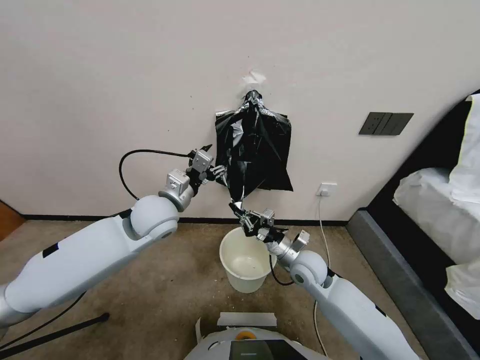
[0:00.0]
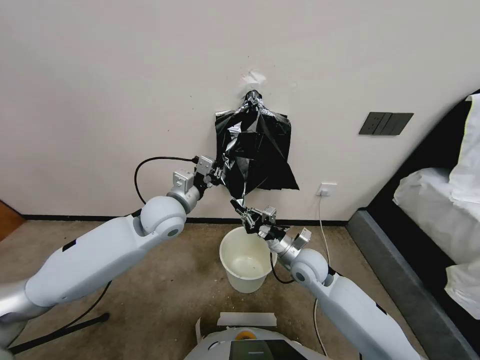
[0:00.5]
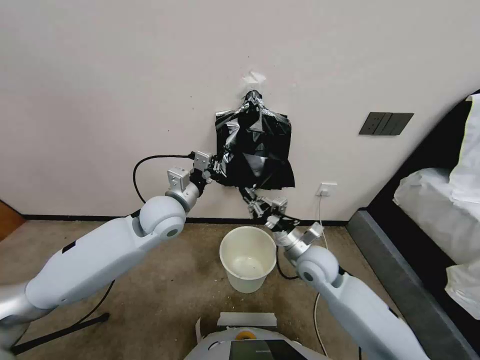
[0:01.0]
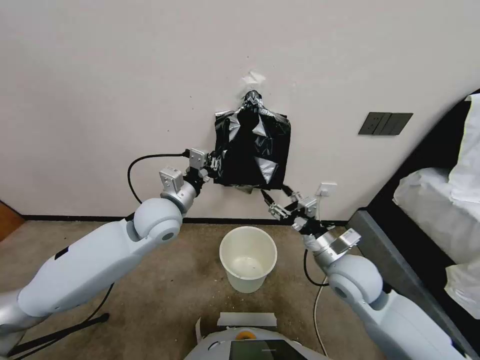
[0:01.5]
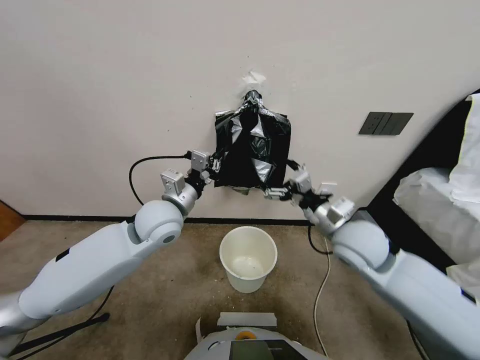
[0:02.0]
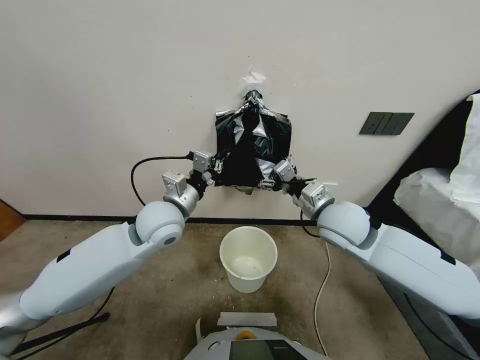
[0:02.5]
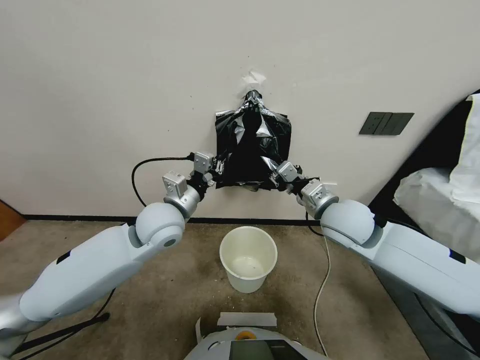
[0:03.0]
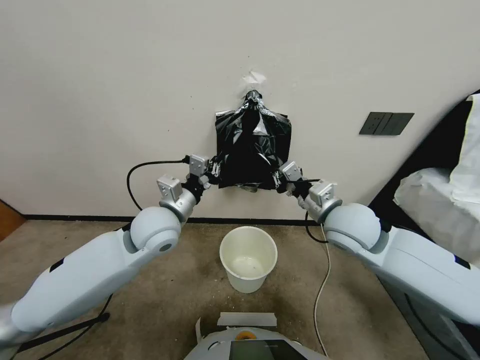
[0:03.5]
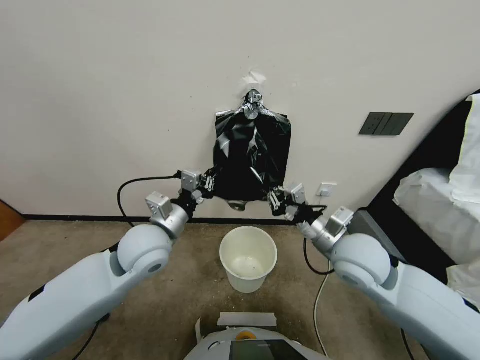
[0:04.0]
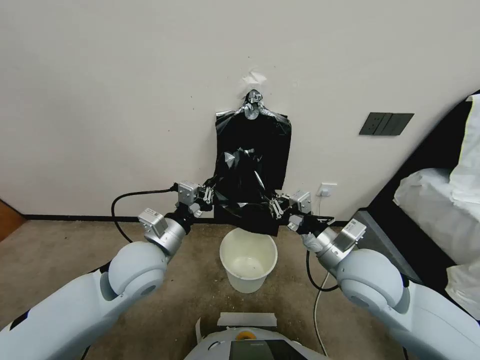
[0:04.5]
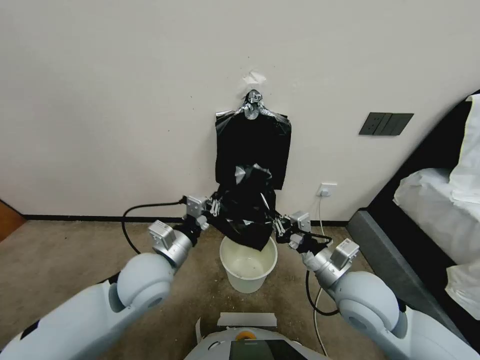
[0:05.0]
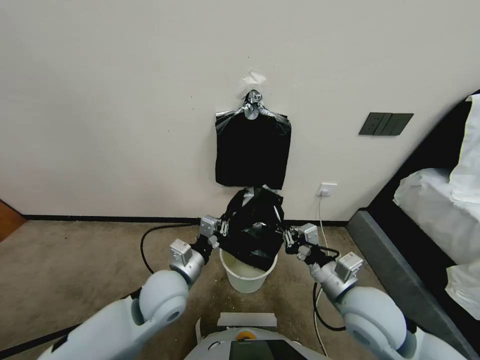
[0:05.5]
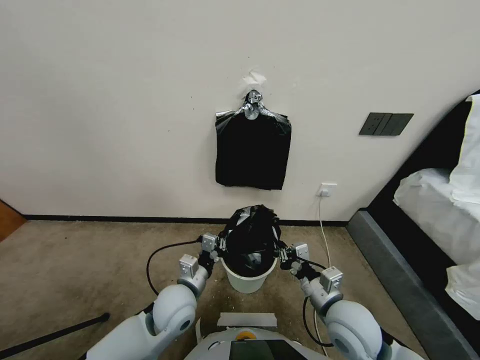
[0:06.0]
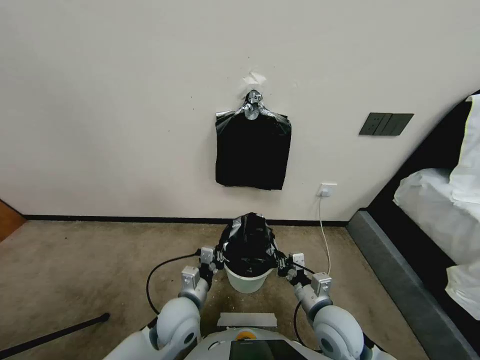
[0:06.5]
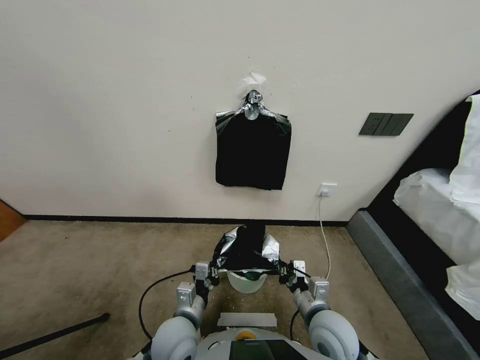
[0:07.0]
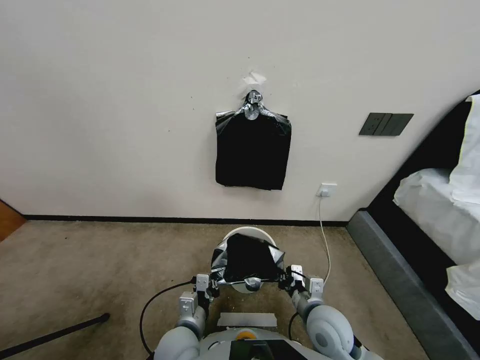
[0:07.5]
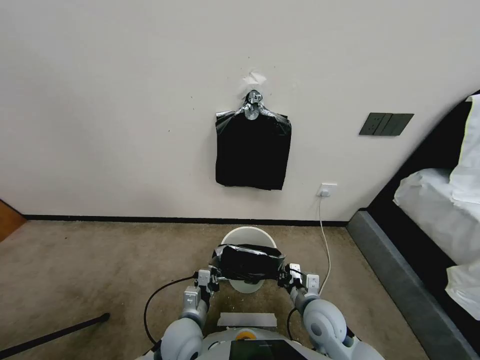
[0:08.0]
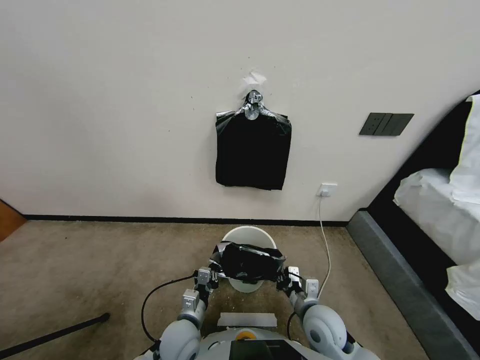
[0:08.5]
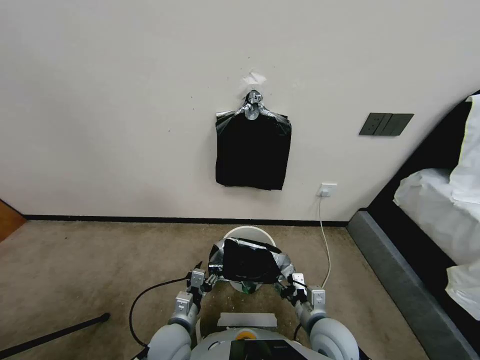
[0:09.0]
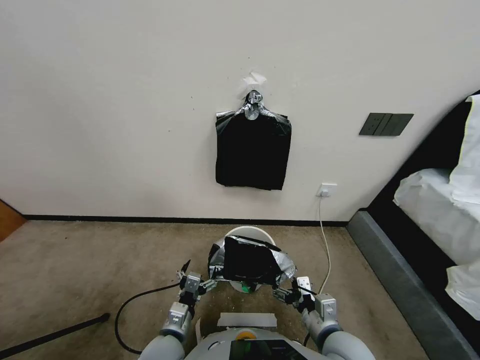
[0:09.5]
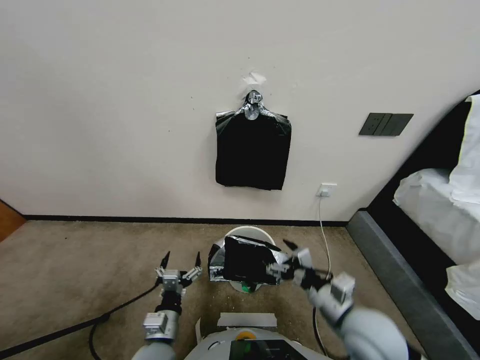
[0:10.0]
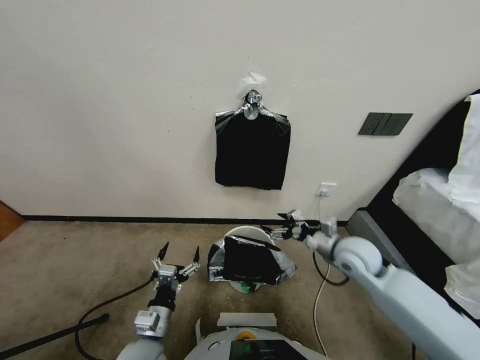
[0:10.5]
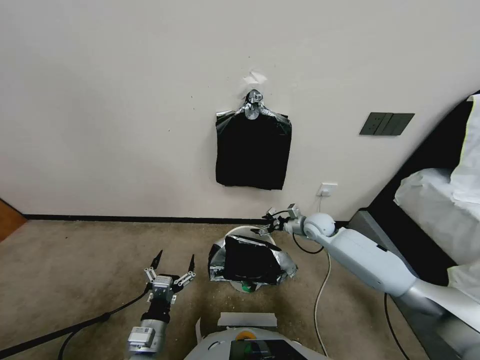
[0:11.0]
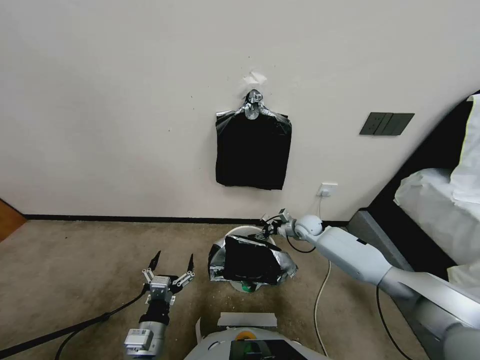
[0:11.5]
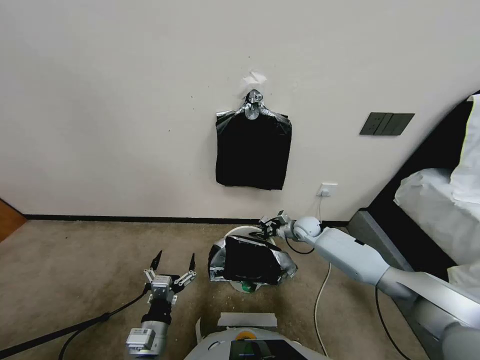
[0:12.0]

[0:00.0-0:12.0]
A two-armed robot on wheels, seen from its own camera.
Task of the whole recording: Place a trash bag onto the trash bin.
0:00.0 to 0:02.0: The right gripper moves upward, roughly 15 cm, and opens up; the left gripper closes up.
0:02.0 to 0:04.0: Both grippers travel together backward, roughly 5 cm. The right gripper closes up.
0:04.0 to 0:06.0: Both grippers travel together downward and backward, roughly 15 cm.
0:06.0 to 0:08.0: Both grippers move downward, approximately 5 cm.
0:08.0 to 0:10.0: The right gripper travels upward by about 10 cm, and opens its fingers. Meanwhile the left gripper heads backward and to the left, covering roughly 5 cm, and opens.
0:10.0 to 0:12.0: The right gripper travels forward and downward by roughly 35 cm, and closes up.

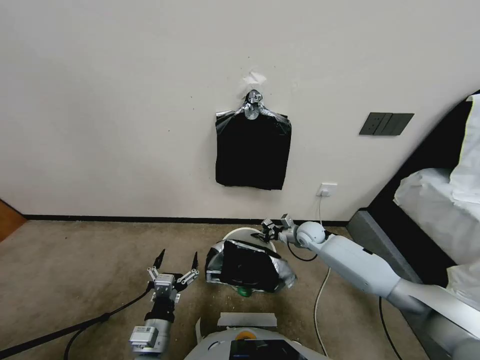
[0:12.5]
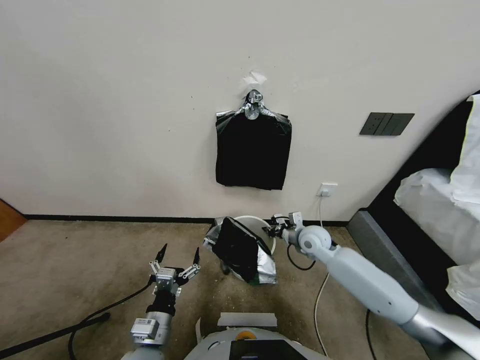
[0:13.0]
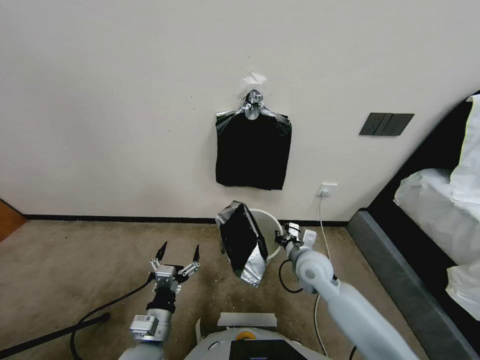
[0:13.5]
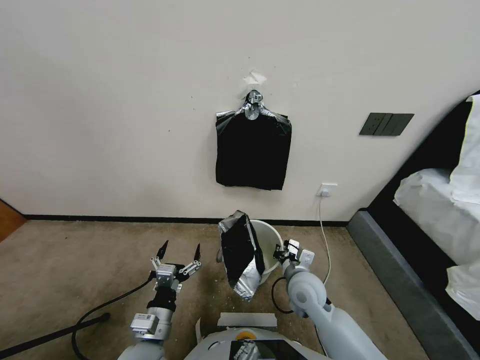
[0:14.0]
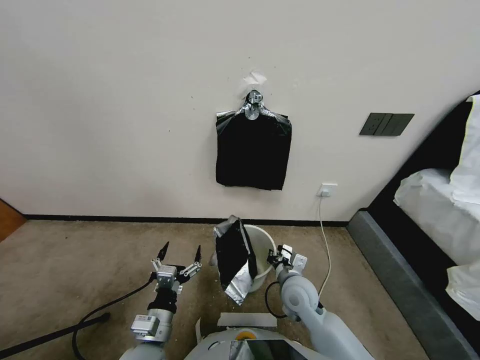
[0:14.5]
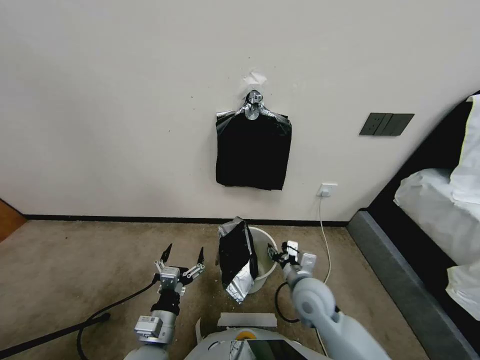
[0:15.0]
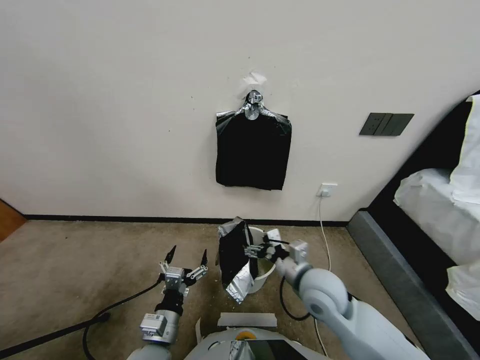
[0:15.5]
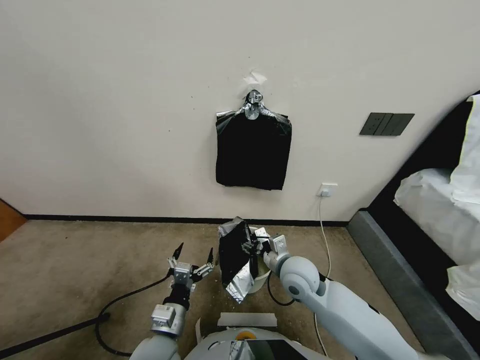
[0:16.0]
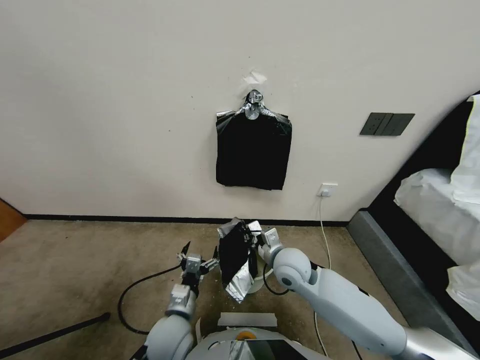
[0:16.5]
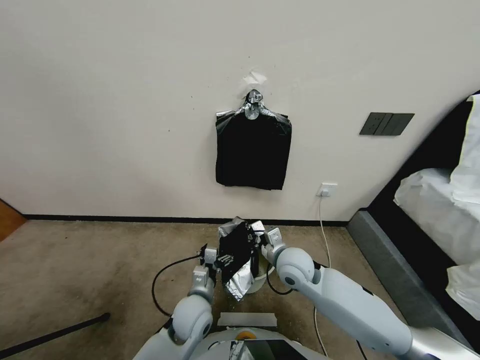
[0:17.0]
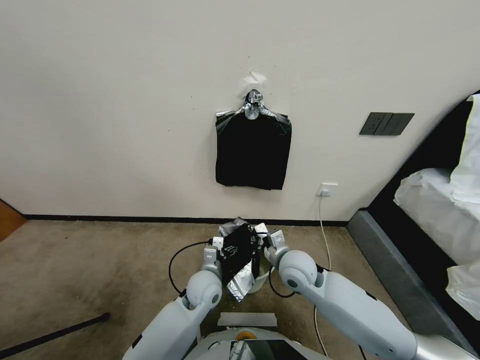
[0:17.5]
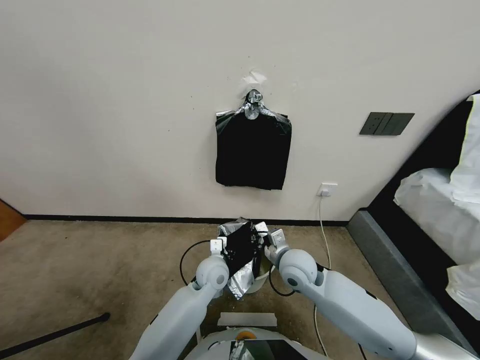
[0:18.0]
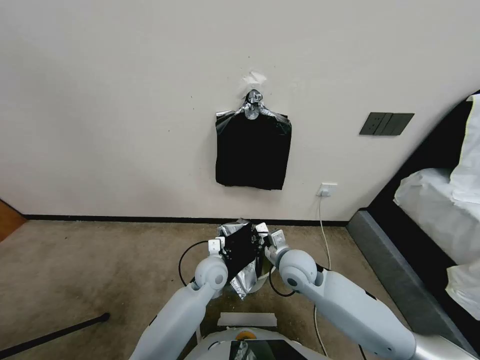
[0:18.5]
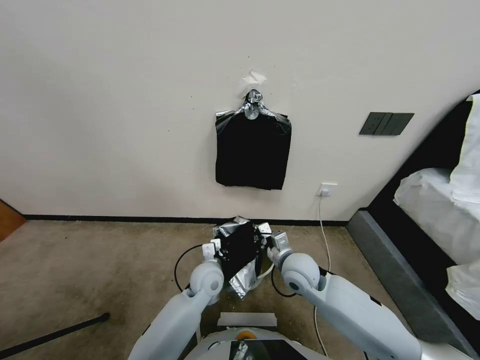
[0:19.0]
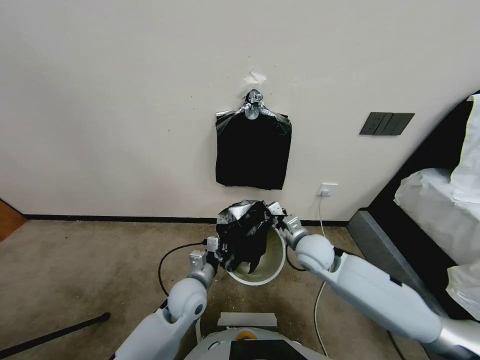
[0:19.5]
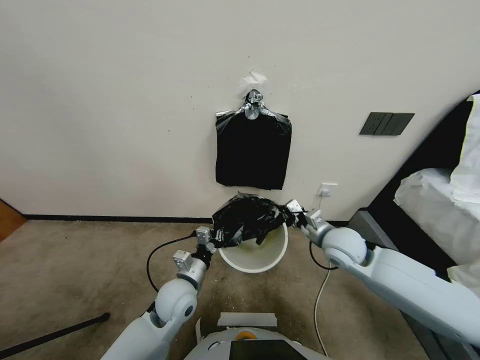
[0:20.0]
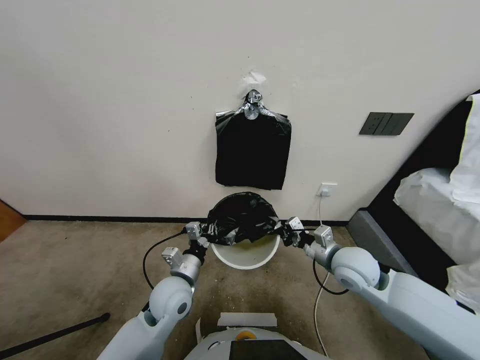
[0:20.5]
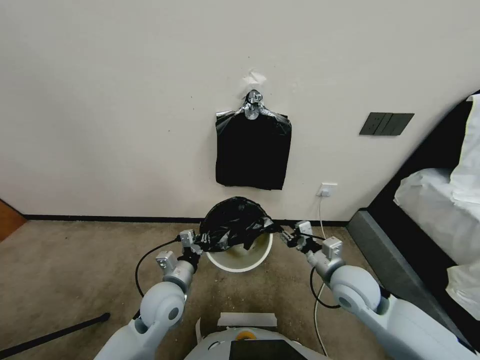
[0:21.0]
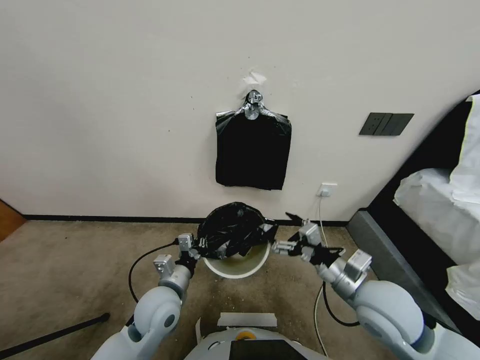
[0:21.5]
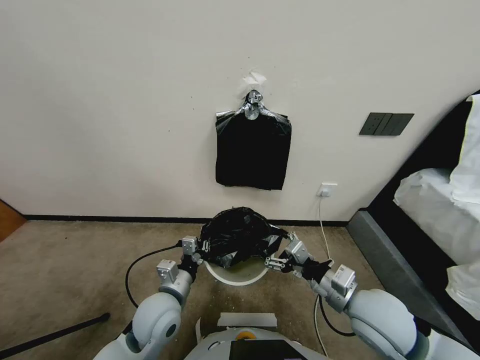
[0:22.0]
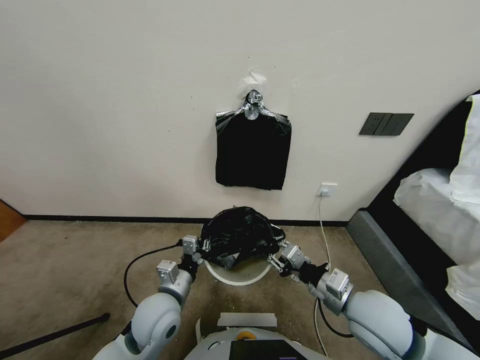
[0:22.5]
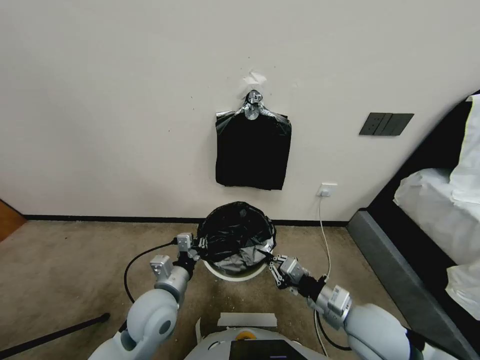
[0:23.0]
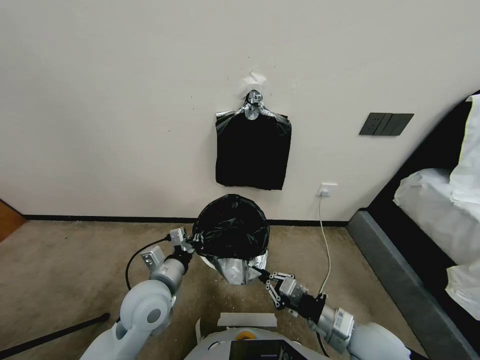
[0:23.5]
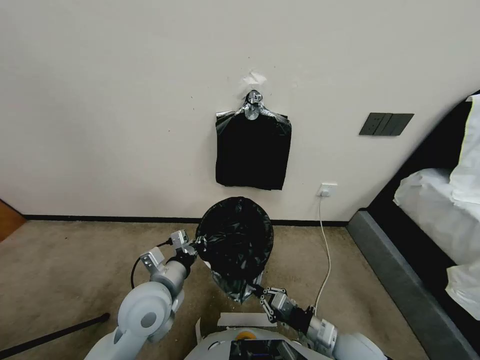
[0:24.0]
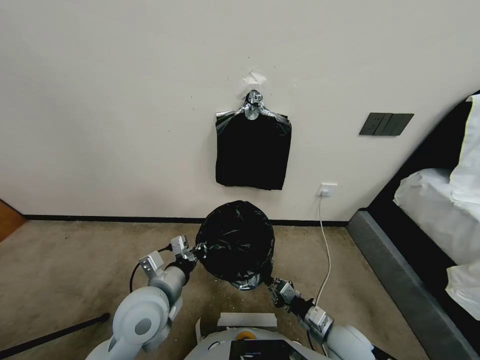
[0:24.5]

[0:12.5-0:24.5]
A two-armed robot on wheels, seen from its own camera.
Task of the whole recording: Place a trash bag onto the trash bin.
0:12.5 to 0:14.5: The right gripper goes some 20 cm backward and to the left.
0:14.5 to 0:16.5: The right gripper travels upward by about 10 cm, and opens and closes again; the left gripper shifts about 10 cm forward and to the right.
0:16.5 to 0:18.5: The left gripper goes some 15 cm forward and to the right, and closes.
0:18.5 to 0:20.5: The right gripper moves to the right, approximately 10 cm. Meanwhile the left gripper moves to the left and backward, some 10 cm.
0:20.5 to 0:22.5: The right gripper travels backward by some 10 cm, and opens, then closes once more.
0:22.5 to 0:24.5: The right gripper travels downward by approximately 15 cm.

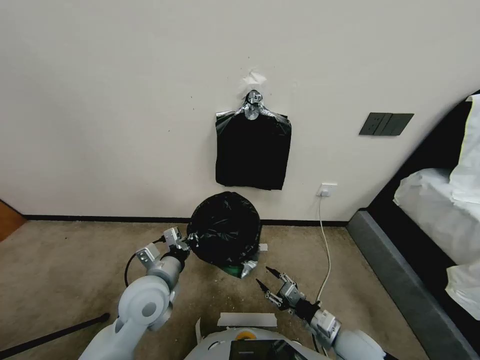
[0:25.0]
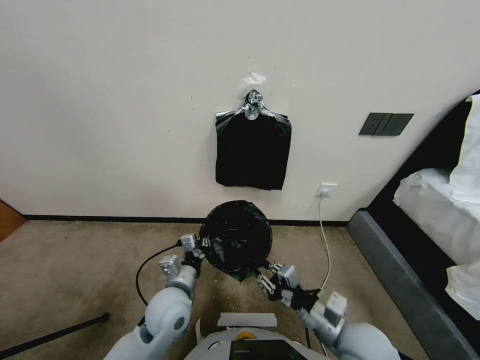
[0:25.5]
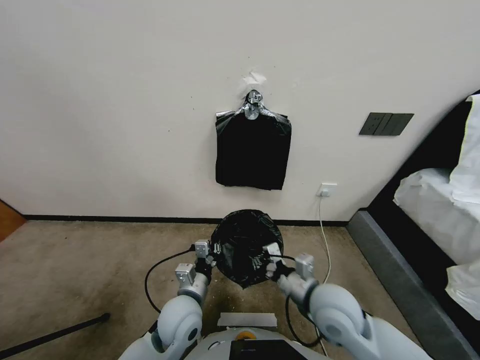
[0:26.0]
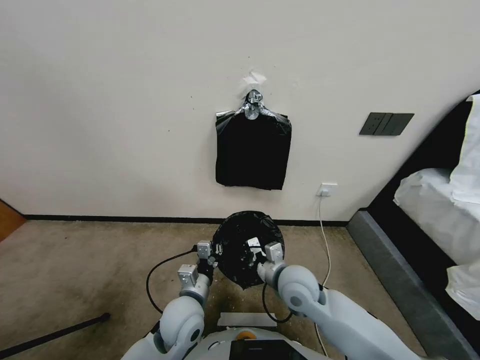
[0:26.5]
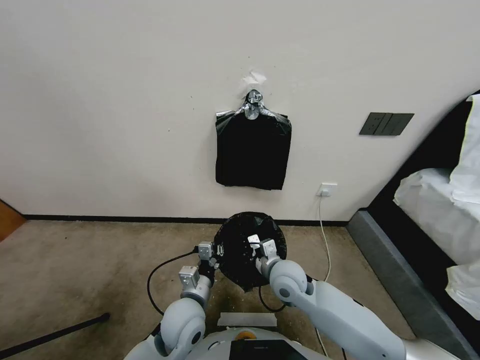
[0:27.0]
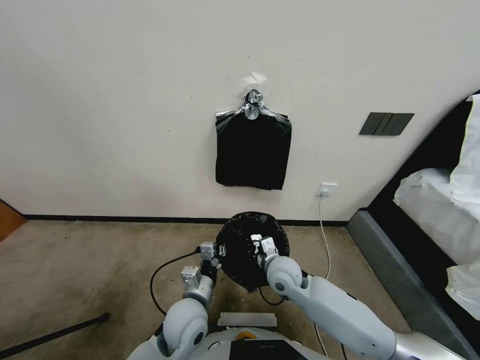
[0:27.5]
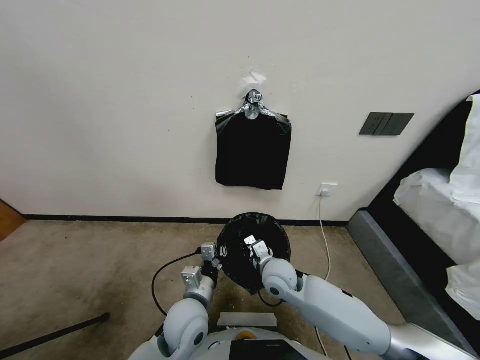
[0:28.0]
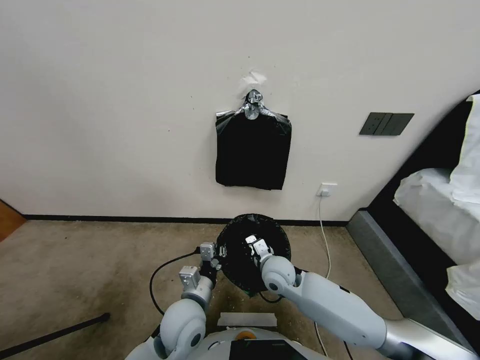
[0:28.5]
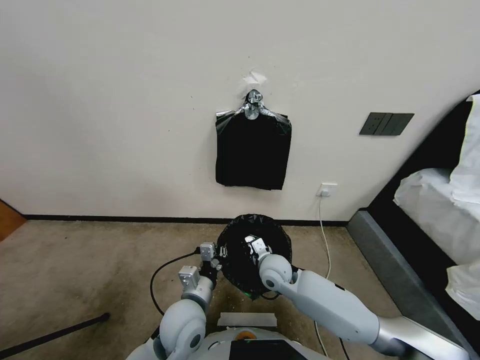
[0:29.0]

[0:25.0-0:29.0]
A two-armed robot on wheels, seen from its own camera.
Task of the whole recording: Place a trash bag onto the trash bin.
0:25.0 to 0:27.0: The right gripper goes approximately 20 cm forward and to the left, and closes, while the left gripper is displaced to the right by approximately 5 cm.
0:27.0 to 0:29.0: The right gripper changes place by roughly 5 cm.
